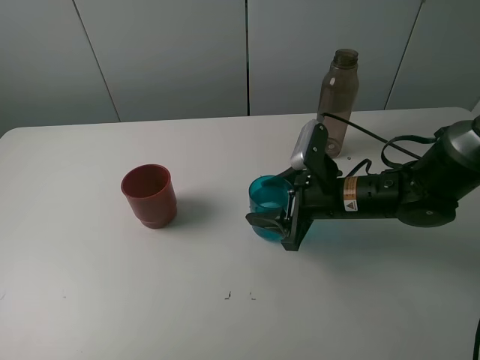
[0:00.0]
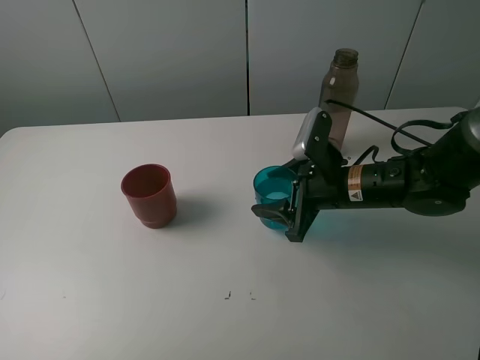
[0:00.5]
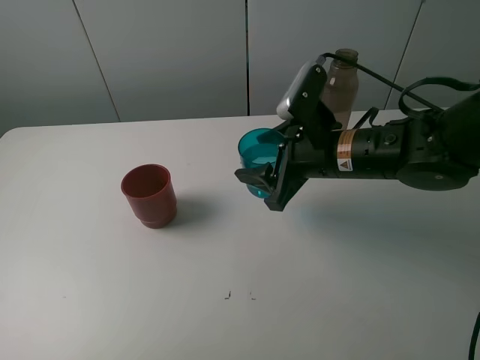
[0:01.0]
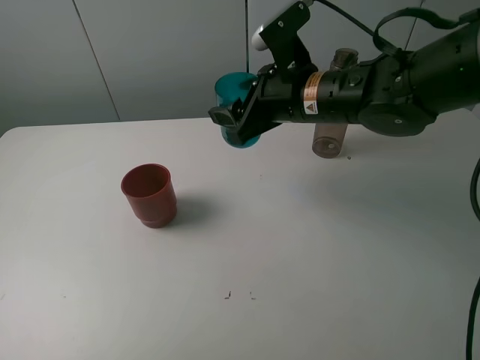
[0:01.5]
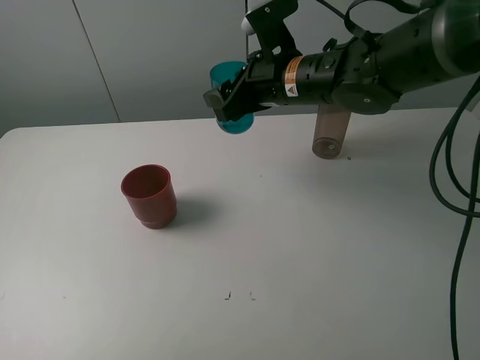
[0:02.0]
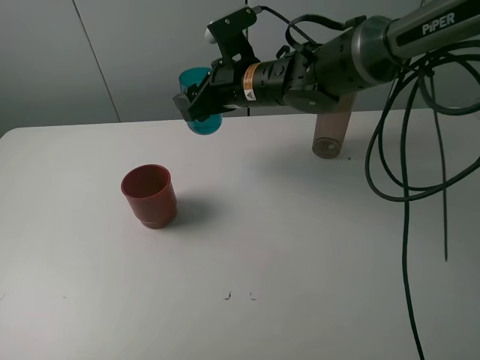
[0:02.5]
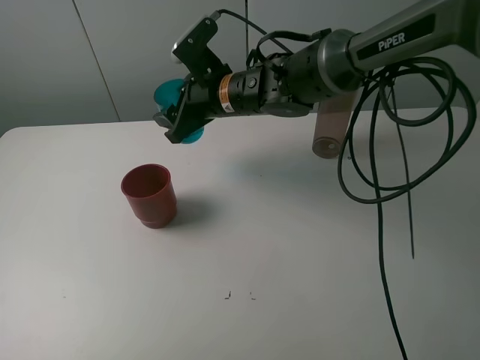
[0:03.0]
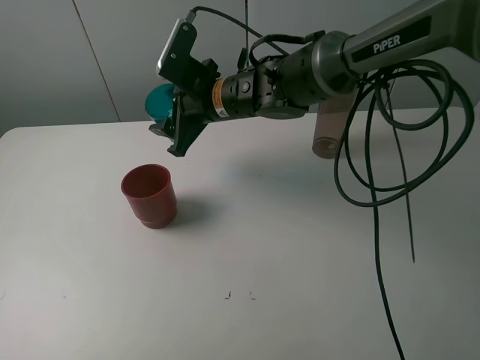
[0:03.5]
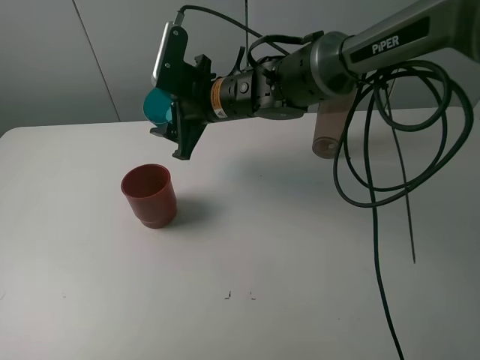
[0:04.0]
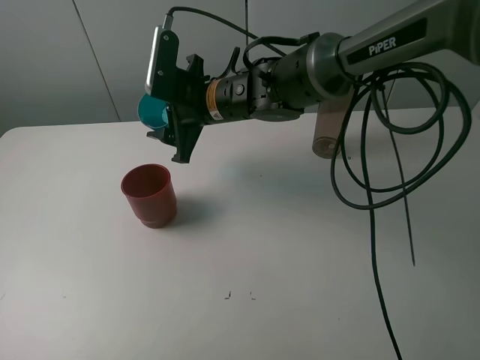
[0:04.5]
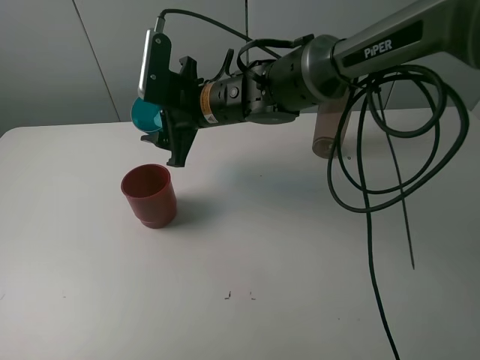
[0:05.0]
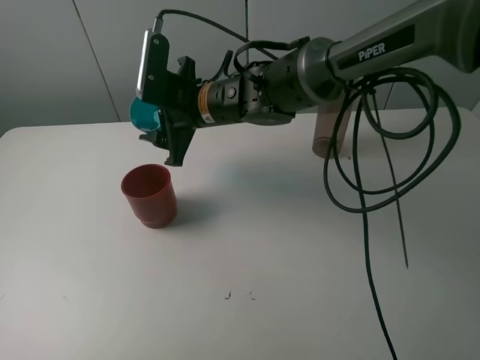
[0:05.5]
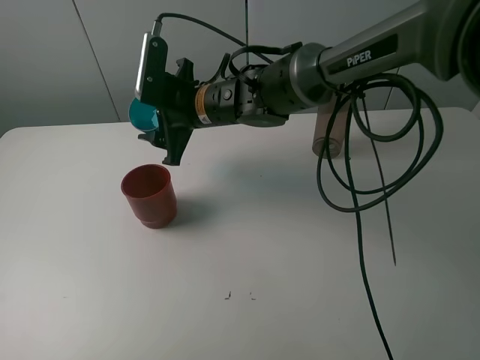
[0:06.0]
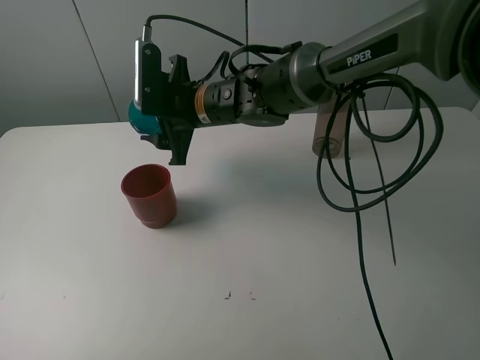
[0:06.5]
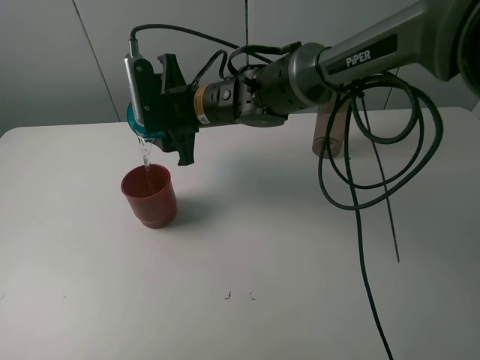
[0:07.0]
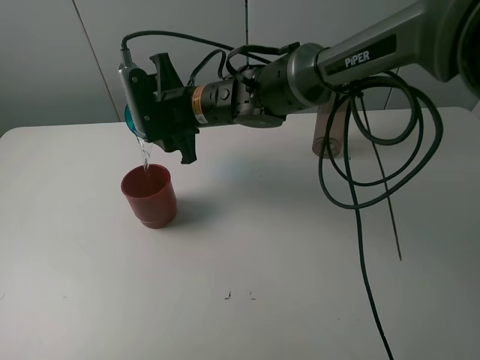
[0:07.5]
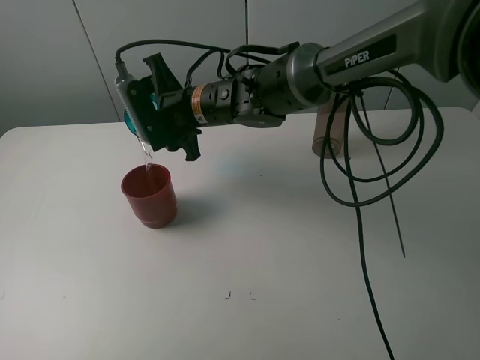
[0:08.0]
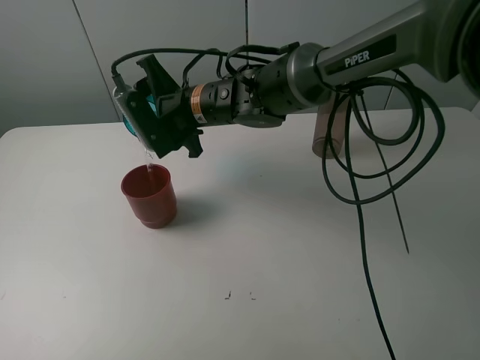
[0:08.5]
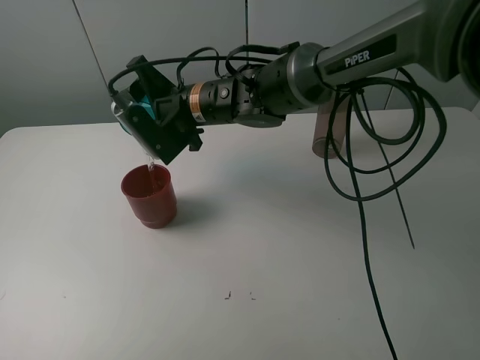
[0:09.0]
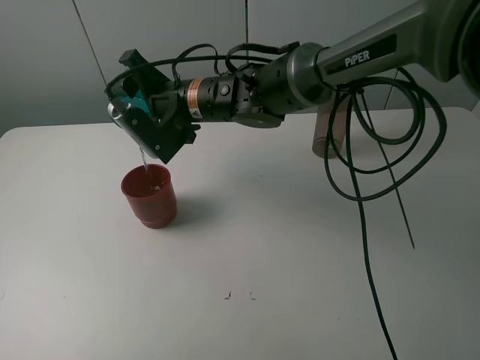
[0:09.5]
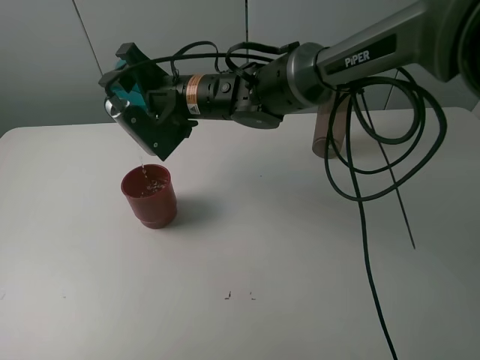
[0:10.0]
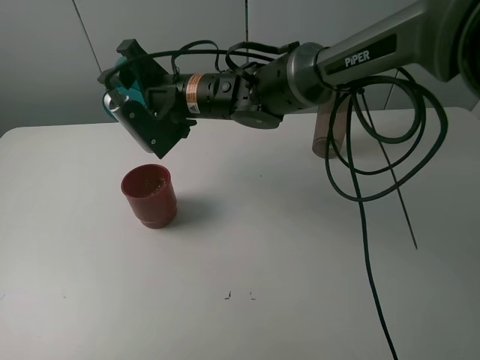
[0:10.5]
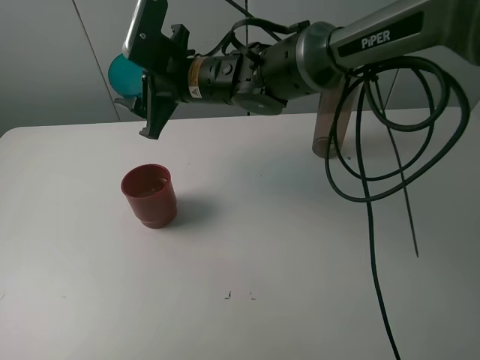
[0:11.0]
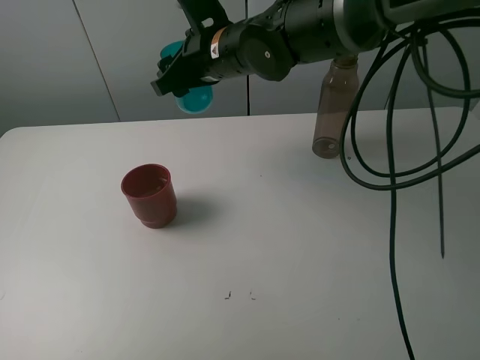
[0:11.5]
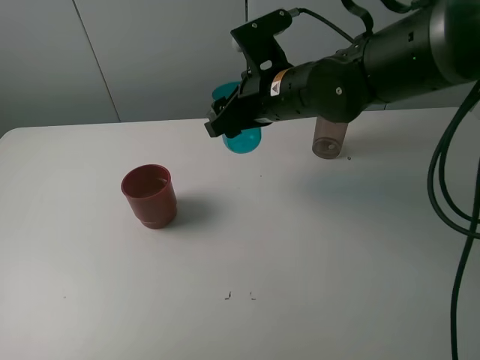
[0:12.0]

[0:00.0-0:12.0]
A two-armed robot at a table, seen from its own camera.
Task of the whole recording: pick up the bottle and pour water into the cup, then pick up the cup containing water and pour it into another cup.
Step, 0:00.0 to 0:10.5: Pour water from blue cup to red cup with the right gripper.
0:00.0 to 0:02.0: The right gripper goes approximately 15 cm upward, forward and to the left.
0:02.0 to 0:04.0: The right gripper moves to the left, roughly 10 cm.
0:04.0 to 0:06.0: The grippers make only small movements.
0:10.0 to 0:12.0: The right gripper shifts about 10 cm to the right.

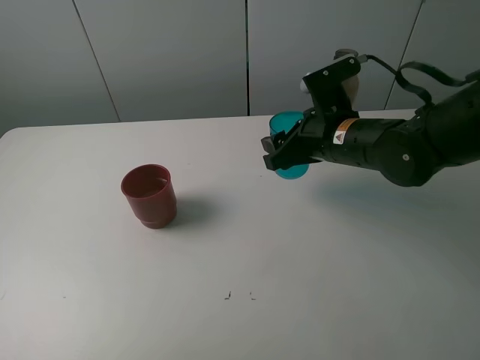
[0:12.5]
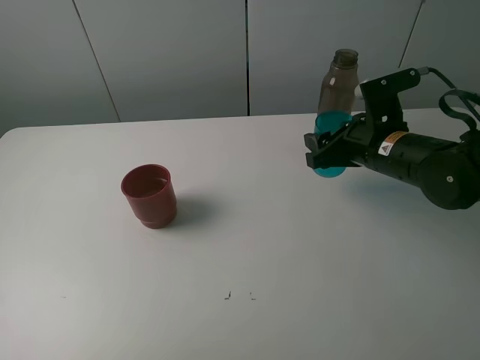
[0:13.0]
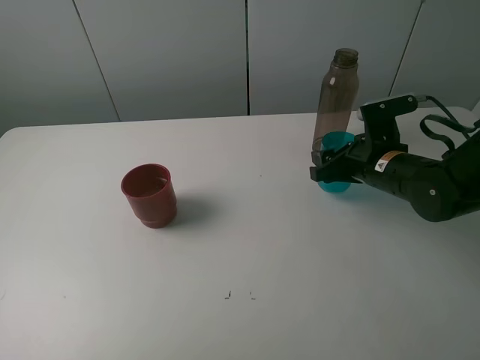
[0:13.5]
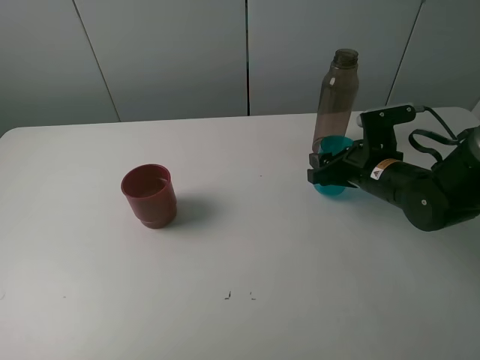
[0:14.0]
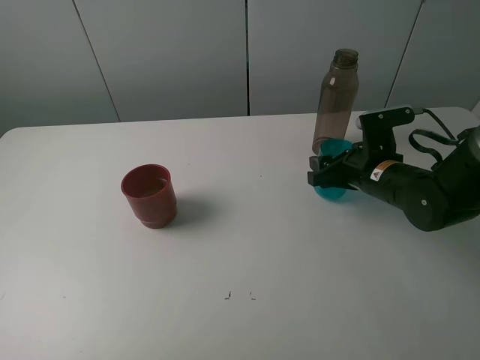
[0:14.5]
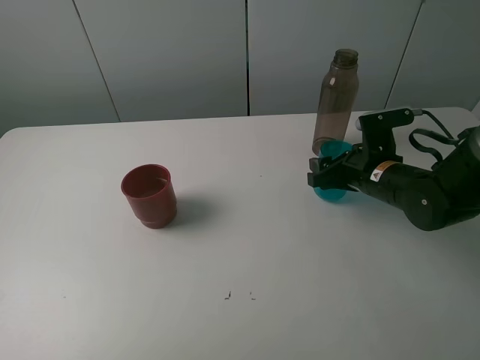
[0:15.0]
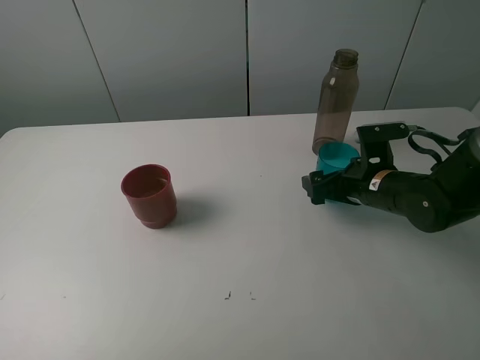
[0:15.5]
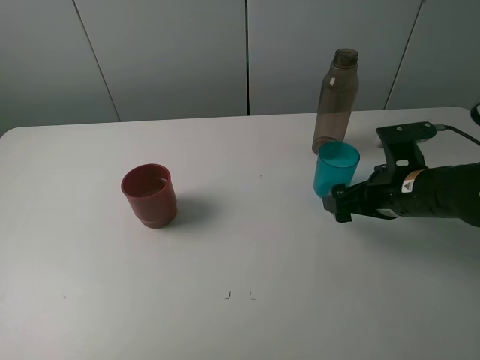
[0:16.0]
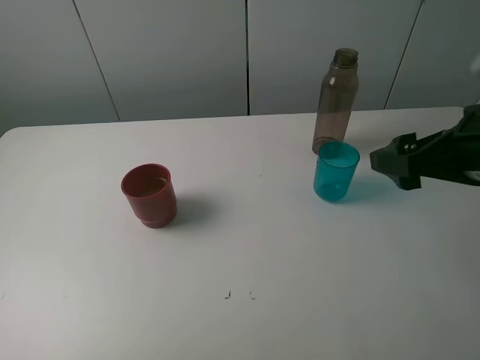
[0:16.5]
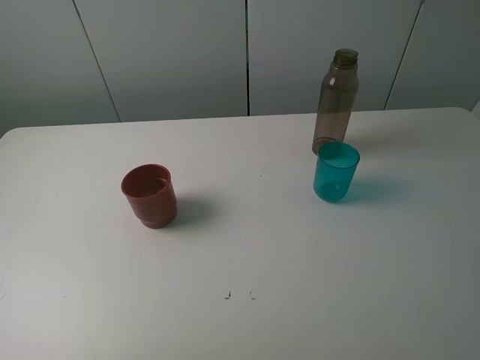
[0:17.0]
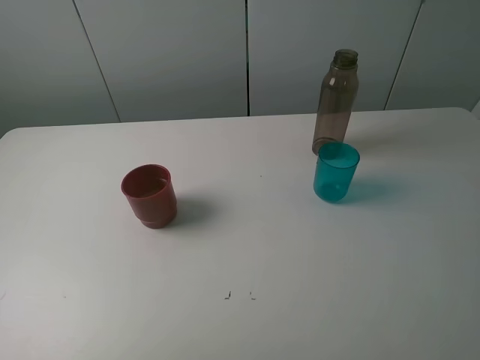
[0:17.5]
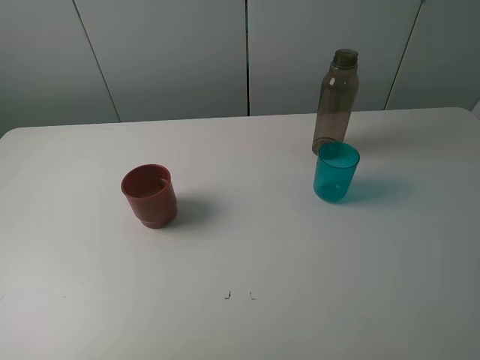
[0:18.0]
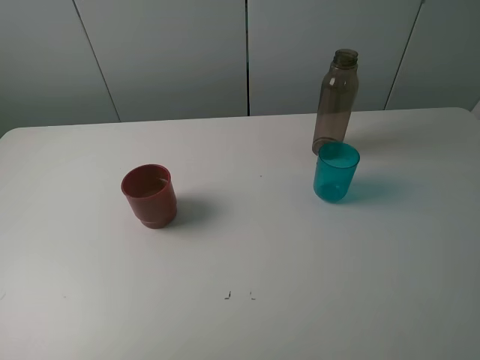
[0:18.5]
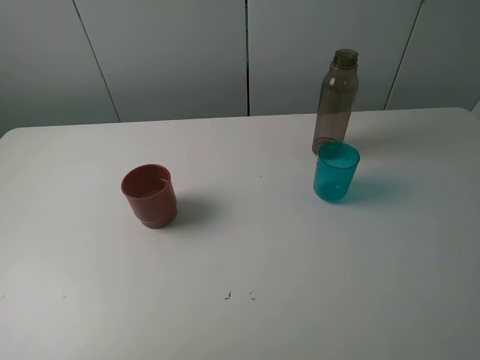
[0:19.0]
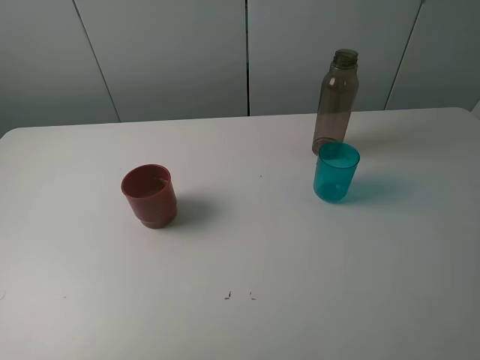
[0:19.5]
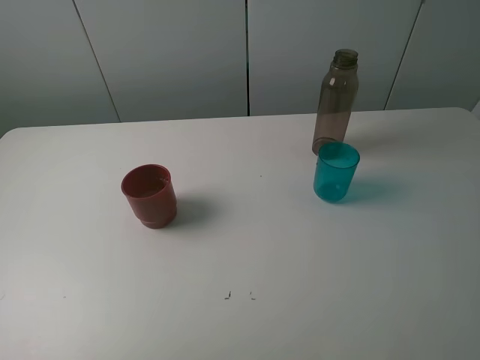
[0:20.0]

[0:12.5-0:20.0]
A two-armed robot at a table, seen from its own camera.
Task of the whole recording: pick up the bottle and pour water into the cup, then pick up the cup containing water and pour it into another cup.
Step, 0:12.5 to 0:15.5: Place the blue cup with the right gripper.
0:12.5 to 0:14.5: The right gripper moves downward and to the right, roughly 10 cm.
0:14.5 to 0:16.5: The right gripper is displaced upward and backward by roughly 20 cm, and opens its fingers.
0:16.5 to 0:18.0: The right gripper travels backward by about 15 cm.
